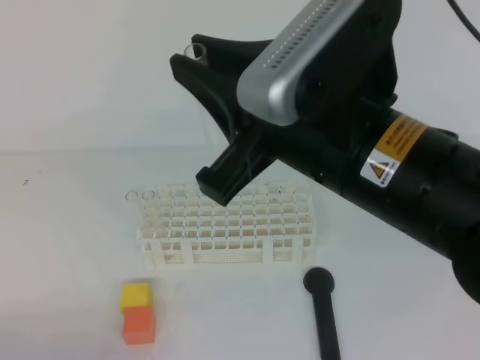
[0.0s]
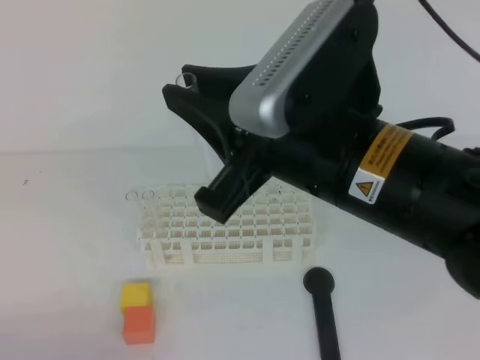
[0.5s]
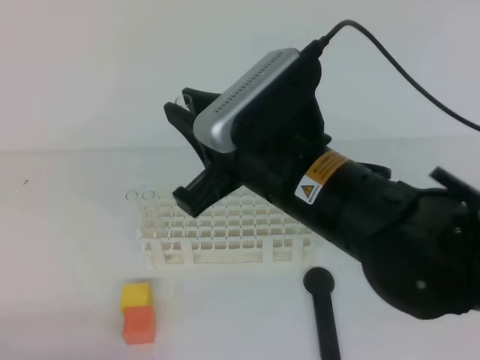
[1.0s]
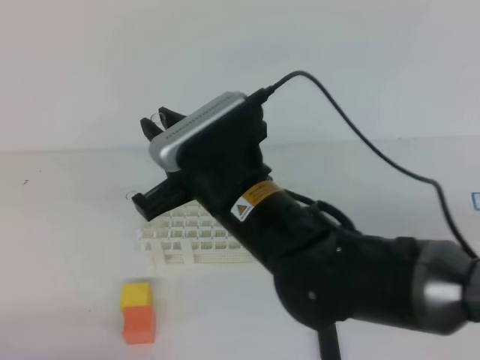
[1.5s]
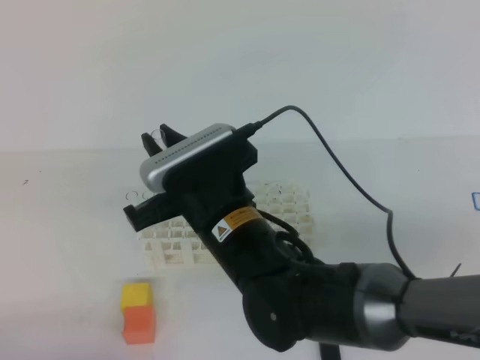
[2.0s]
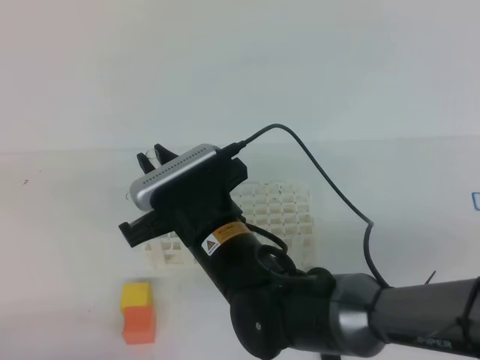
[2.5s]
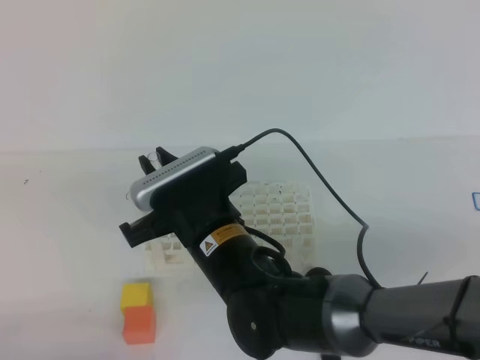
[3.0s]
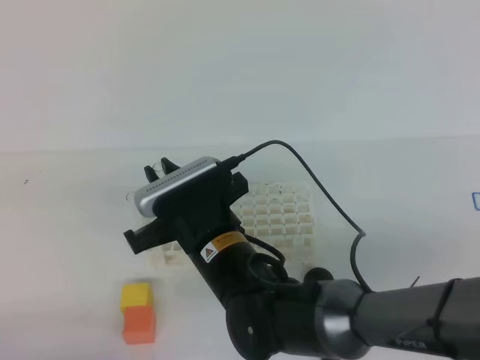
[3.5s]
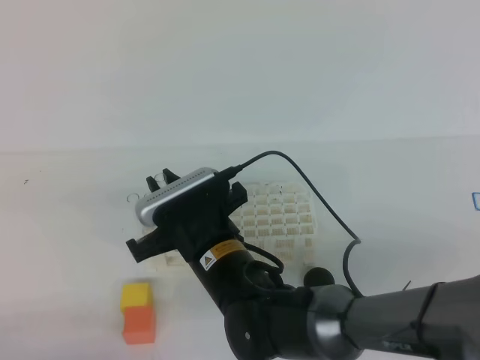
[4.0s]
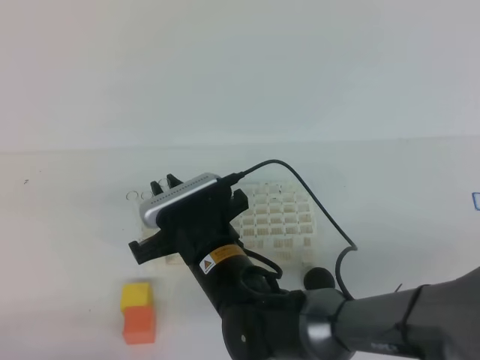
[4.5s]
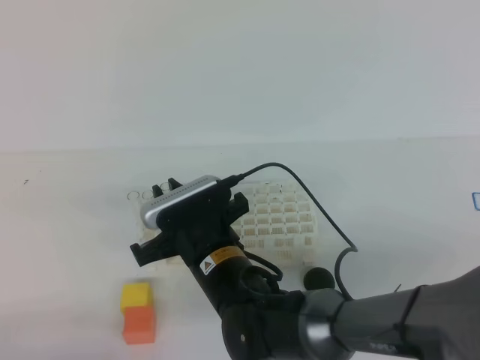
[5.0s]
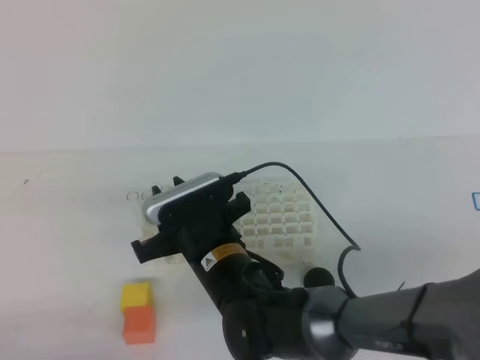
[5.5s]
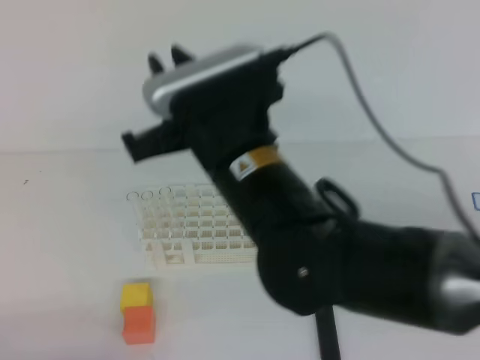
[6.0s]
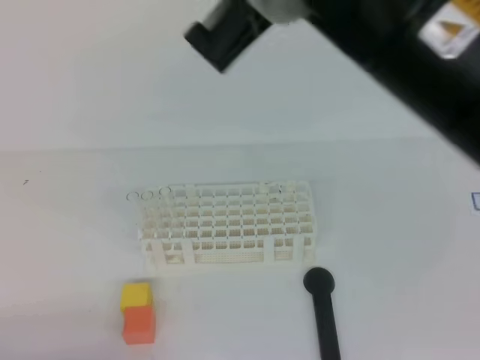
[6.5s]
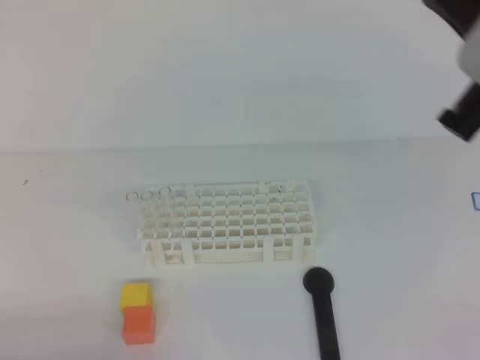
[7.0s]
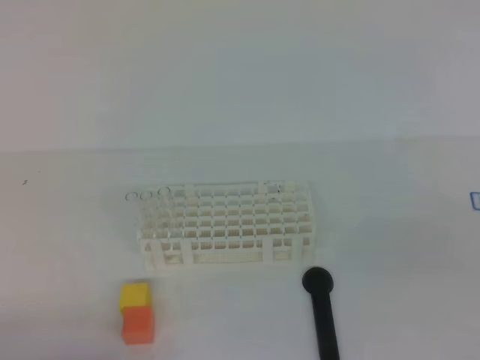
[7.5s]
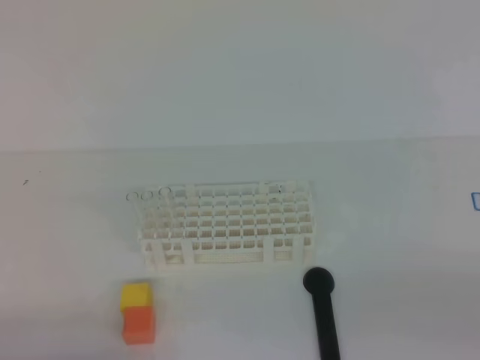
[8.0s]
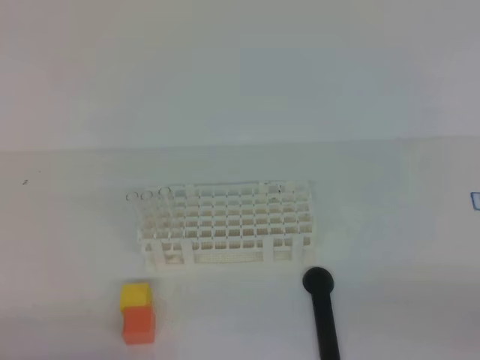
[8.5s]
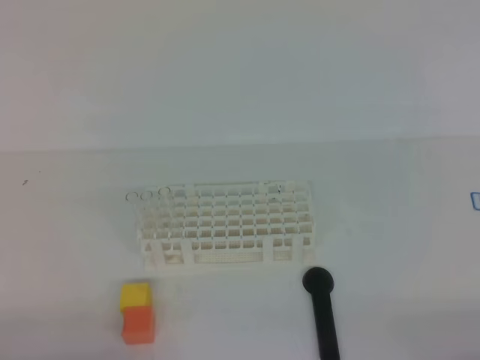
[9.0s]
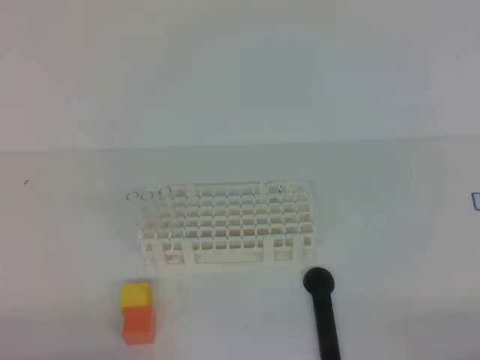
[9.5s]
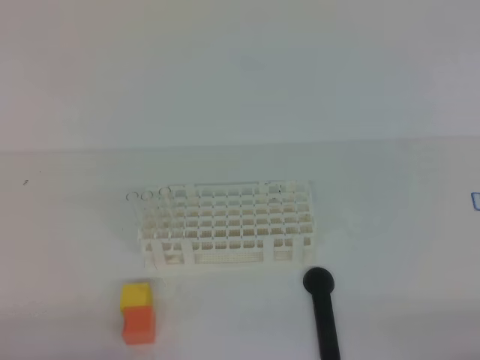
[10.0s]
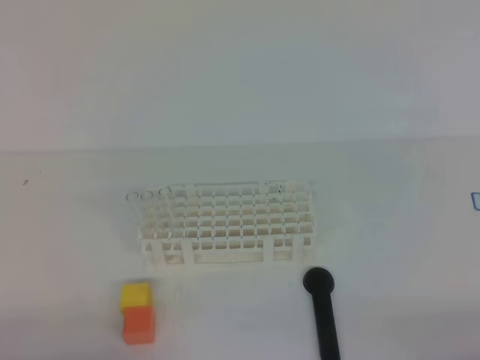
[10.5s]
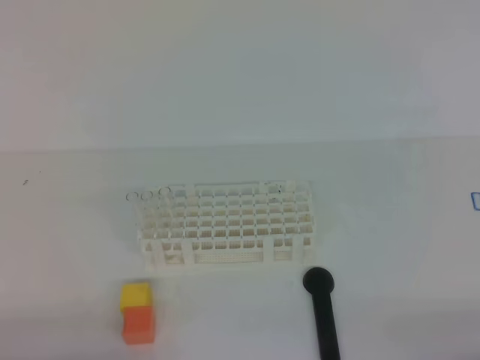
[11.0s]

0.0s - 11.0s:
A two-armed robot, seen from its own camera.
0.0s - 2.0s: The right gripper shifts roughly 20 cm downward, to the left and forward.
2.0s - 3.5s: The right gripper ends up approximately 5 cm from where it was.
3.5s - 5.5s: The grippers stay close to where they were, moving slightly.
5.5s - 7.5s: The right gripper shifts some 40 cm to the right and backward, and closes its fingers.
9.0s - 11.0s: Neither gripper changes place.

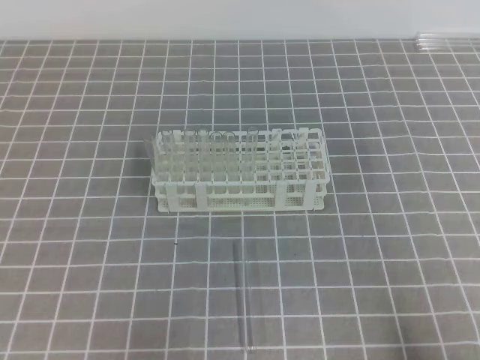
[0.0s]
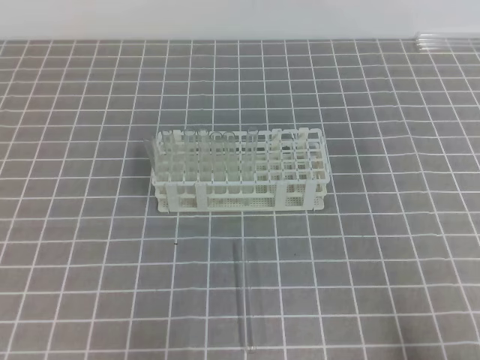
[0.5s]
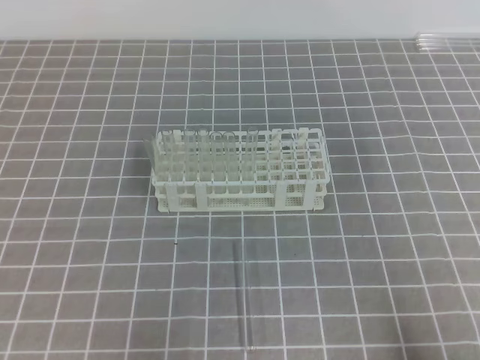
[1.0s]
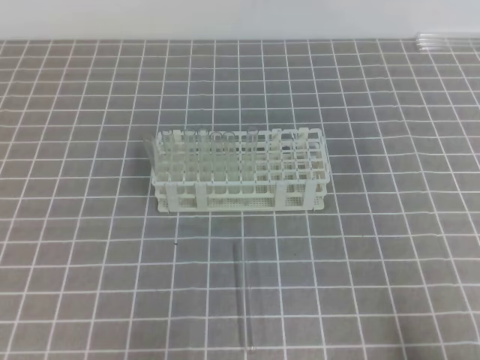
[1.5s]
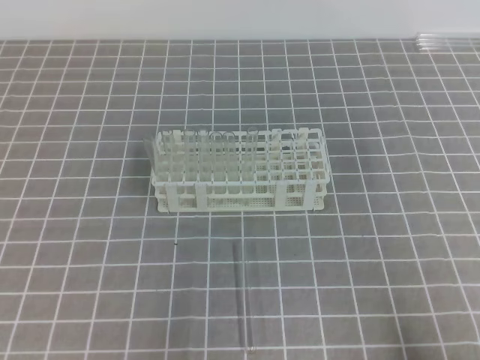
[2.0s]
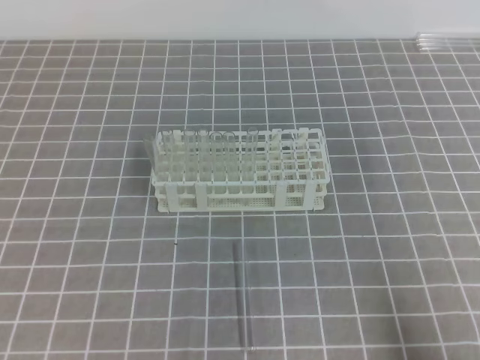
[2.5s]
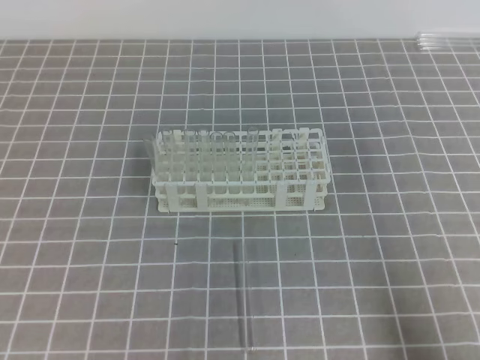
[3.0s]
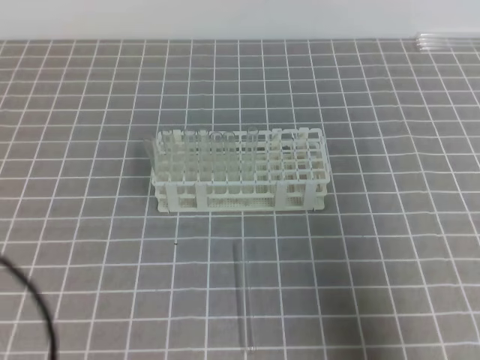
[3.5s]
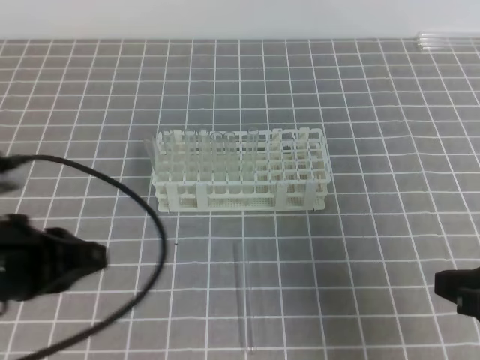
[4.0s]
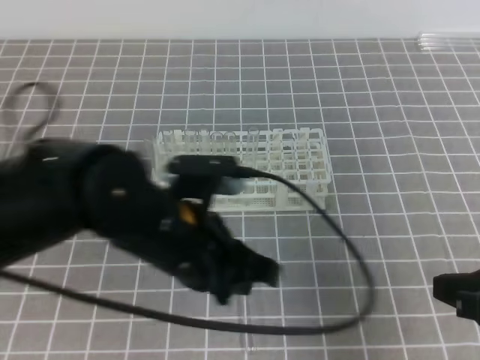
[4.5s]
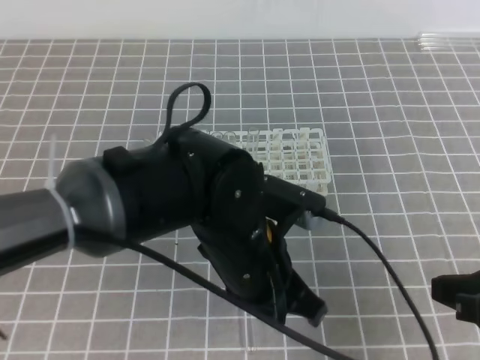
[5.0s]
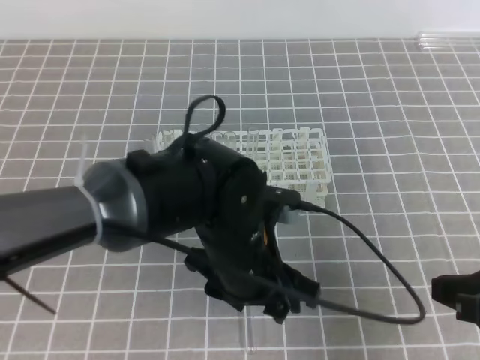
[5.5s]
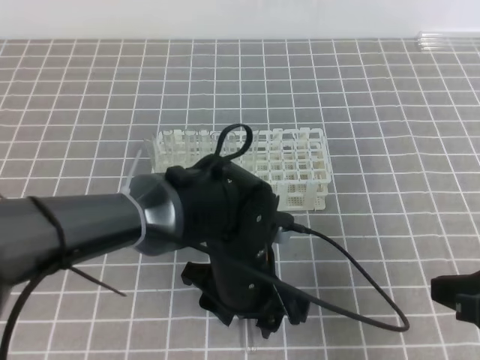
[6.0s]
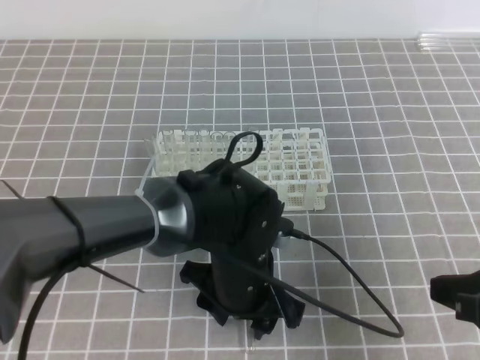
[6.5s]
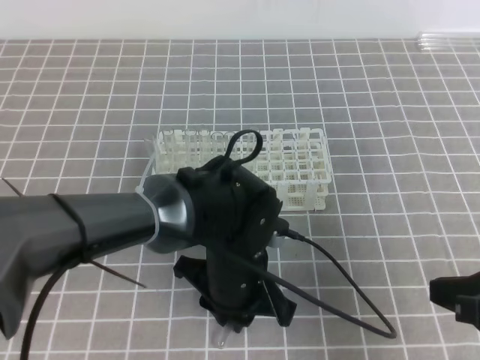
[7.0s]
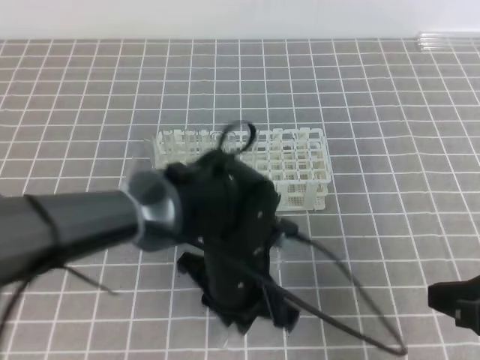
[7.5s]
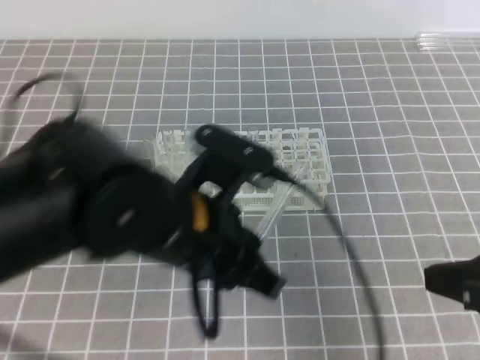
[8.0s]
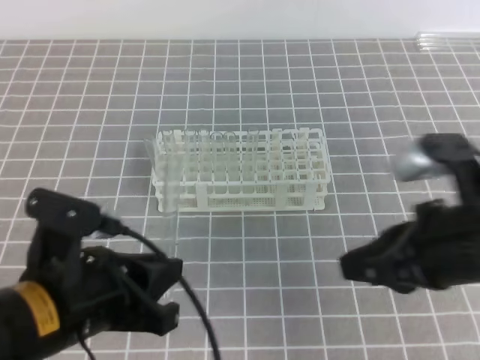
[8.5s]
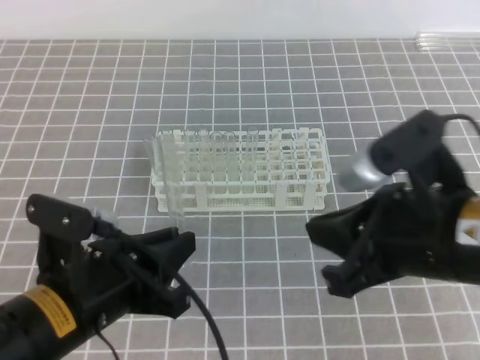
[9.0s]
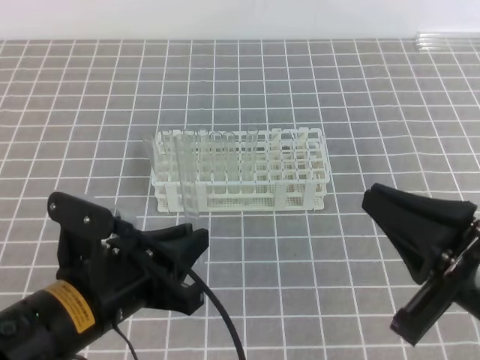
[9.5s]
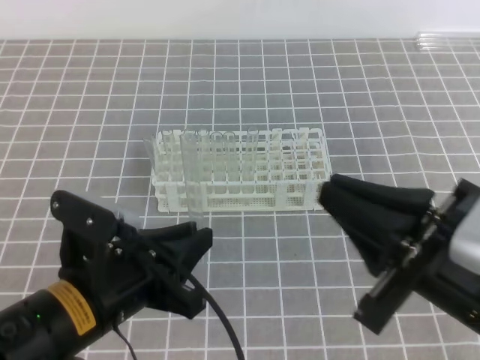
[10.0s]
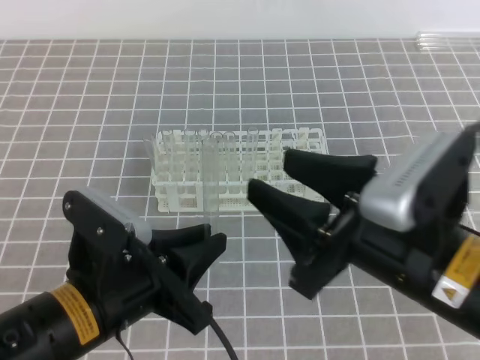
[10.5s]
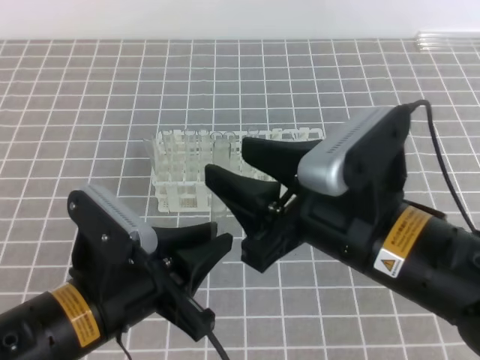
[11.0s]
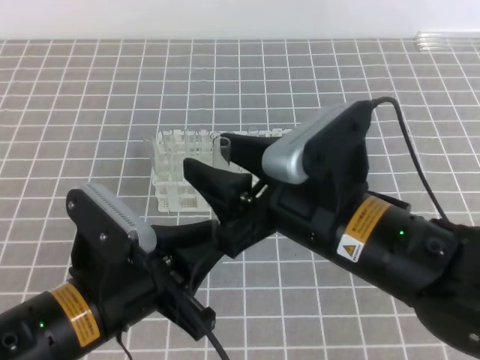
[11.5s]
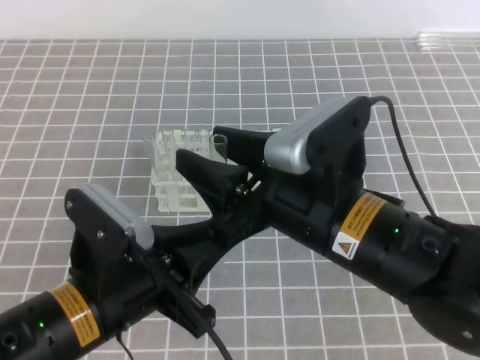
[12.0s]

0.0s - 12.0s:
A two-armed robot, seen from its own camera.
2.0s - 4.0s: The left gripper is displaced upward, forward and to the right by roughly 15 cm. The right gripper travels forward and upward by about 10 cm.
4.0s - 6.0s: The left gripper goes some 25 cm to the right and downward, and opens.
6.0s - 8.0s: The left gripper heads upward, covering approximately 10 cm, and closes up.
8.0s - 10.0s: The left gripper moves to the left and downward, about 10 cm, while the right gripper shifts approximately 10 cm to the left.
10.0s - 12.0s: The right gripper moves to the left and forward, about 10 cm, and opens up.

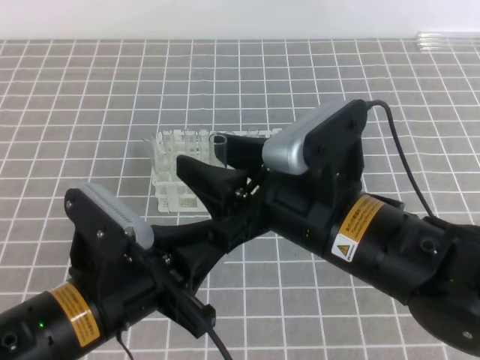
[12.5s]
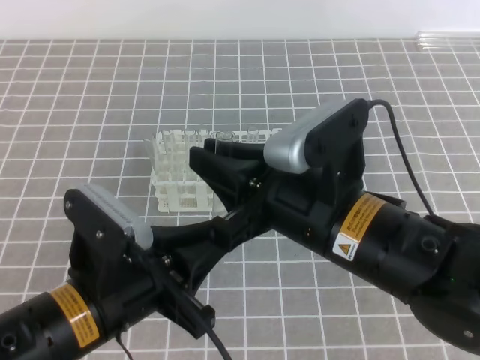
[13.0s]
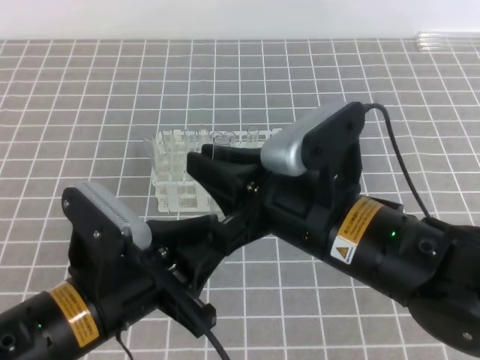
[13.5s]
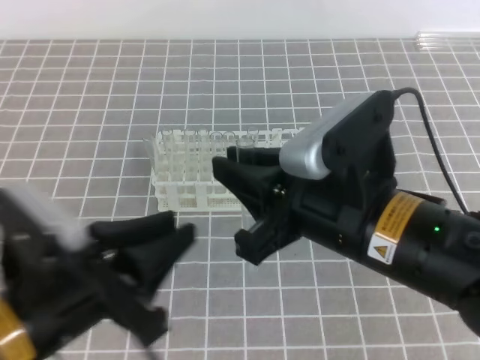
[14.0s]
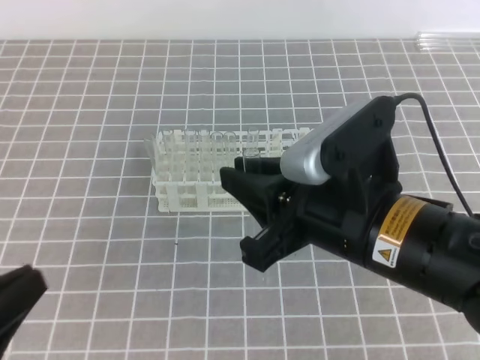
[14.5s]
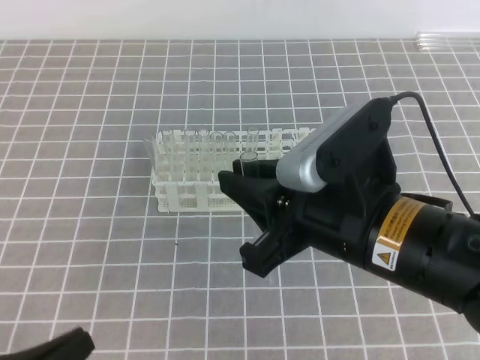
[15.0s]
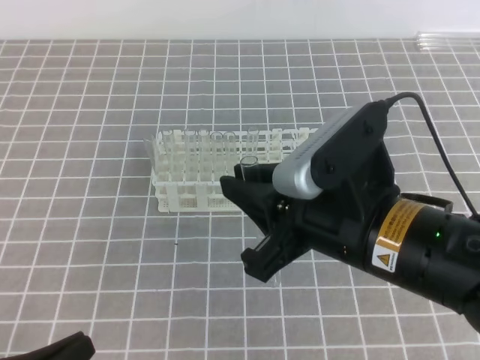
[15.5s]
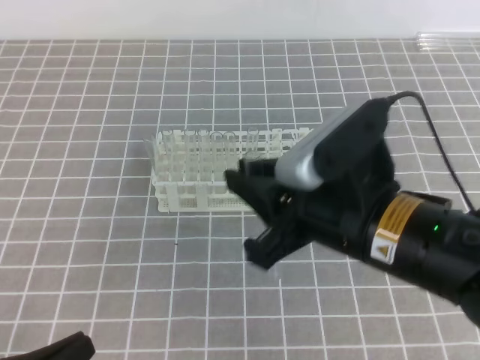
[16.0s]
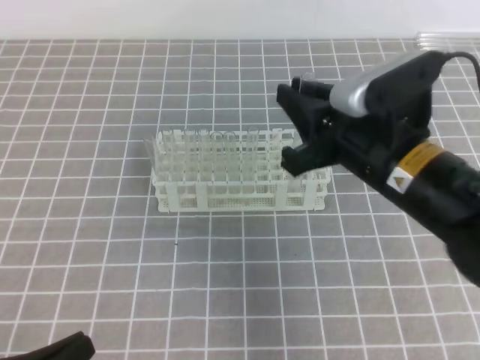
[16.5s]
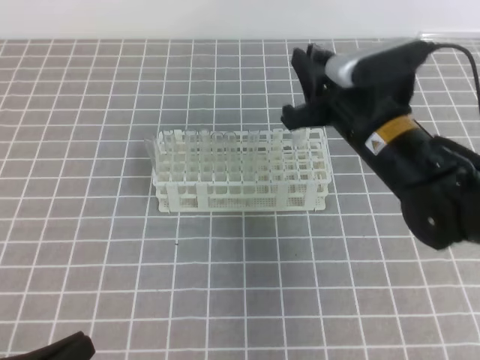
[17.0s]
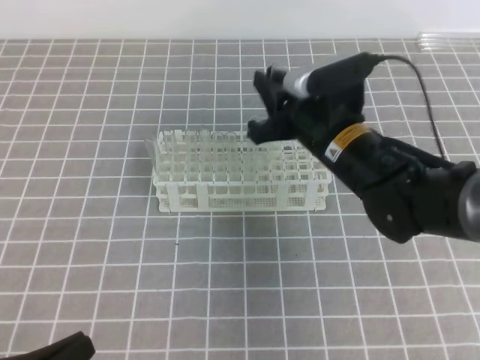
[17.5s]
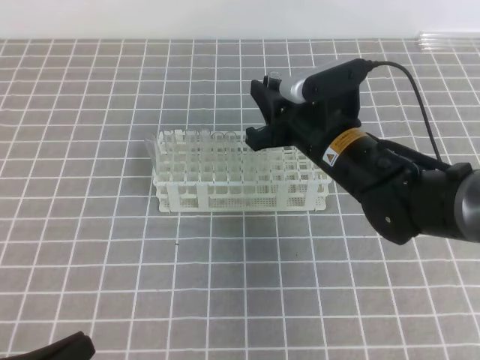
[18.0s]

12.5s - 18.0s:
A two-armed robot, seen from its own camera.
12.5s - 14.5s: The left gripper heads to the left, backward and upward, covering approximately 15 cm, and opens and closes again. Meanwhile the right gripper closes.
14.5s - 16.0s: The left gripper heads downward, covering about 10 cm.
16.0s - 18.0s: The right gripper shifts about 15 cm forward and downward.
